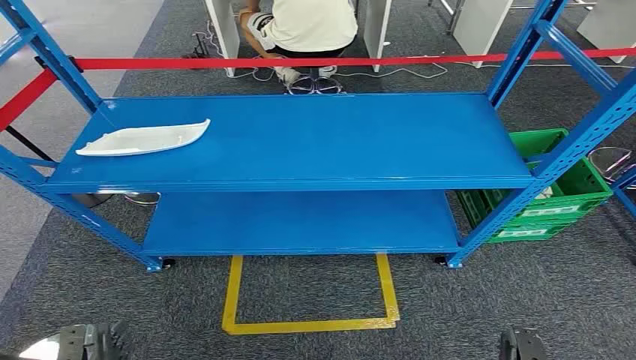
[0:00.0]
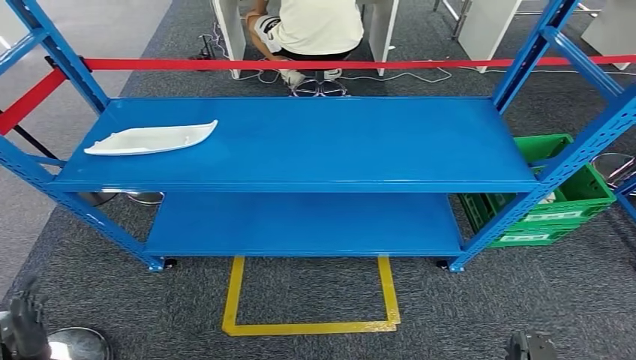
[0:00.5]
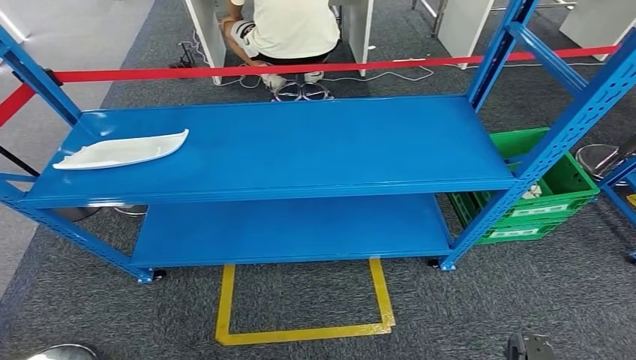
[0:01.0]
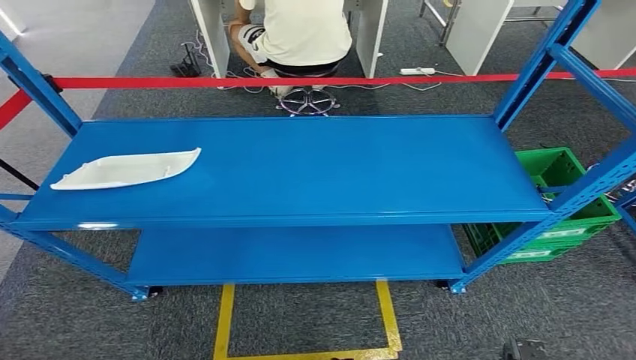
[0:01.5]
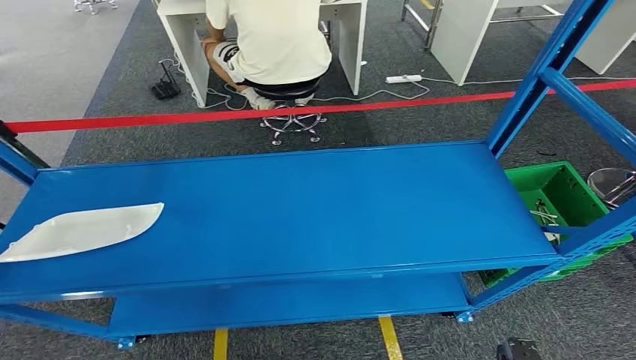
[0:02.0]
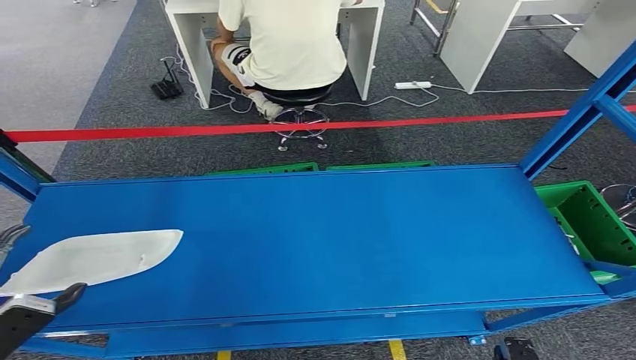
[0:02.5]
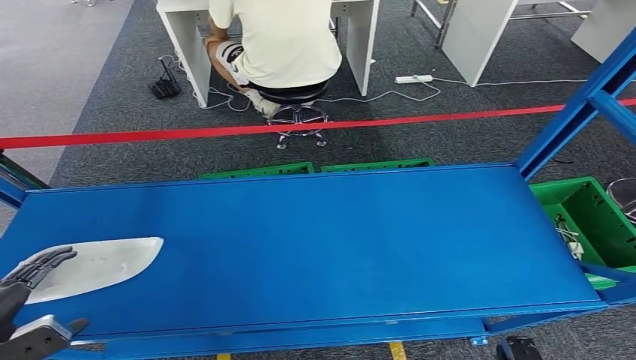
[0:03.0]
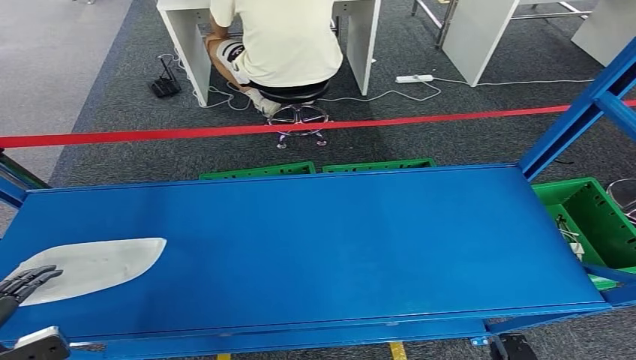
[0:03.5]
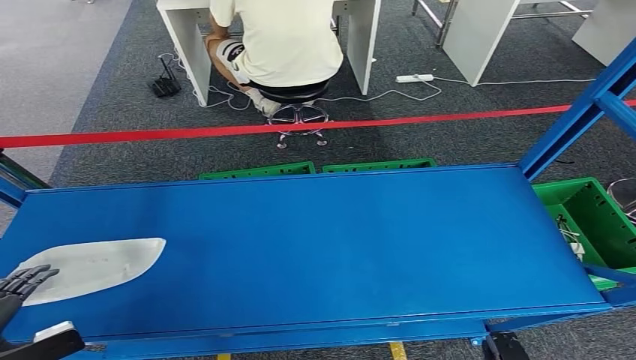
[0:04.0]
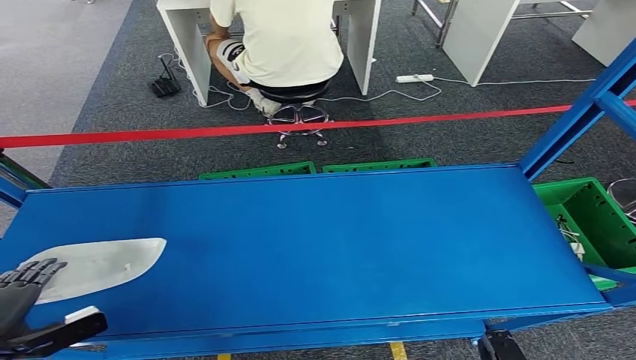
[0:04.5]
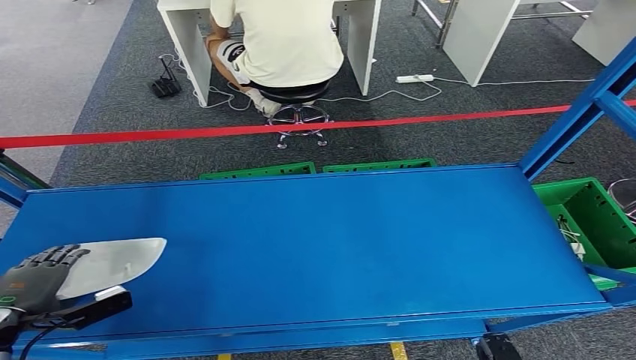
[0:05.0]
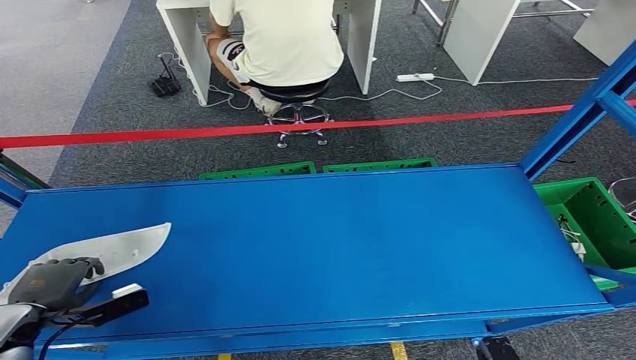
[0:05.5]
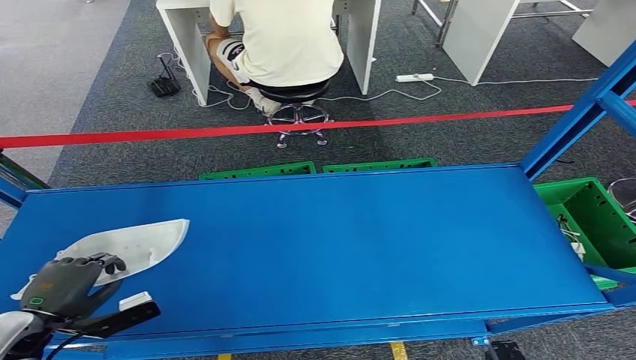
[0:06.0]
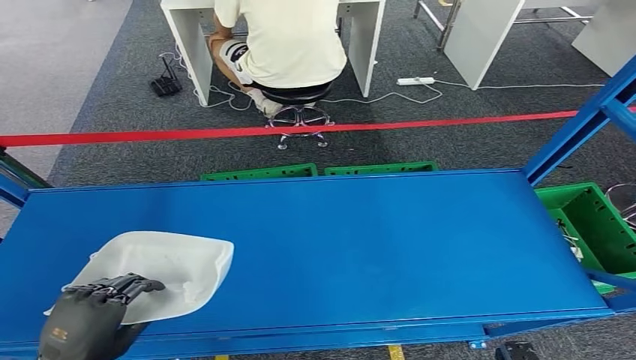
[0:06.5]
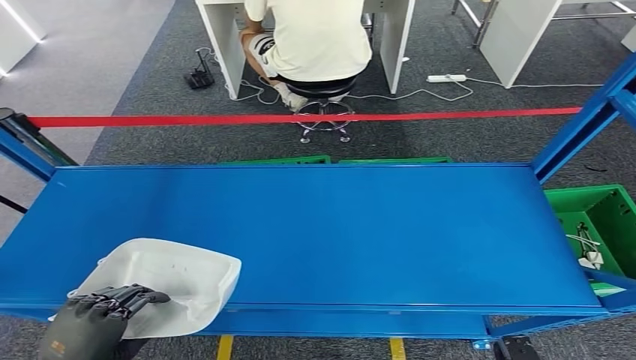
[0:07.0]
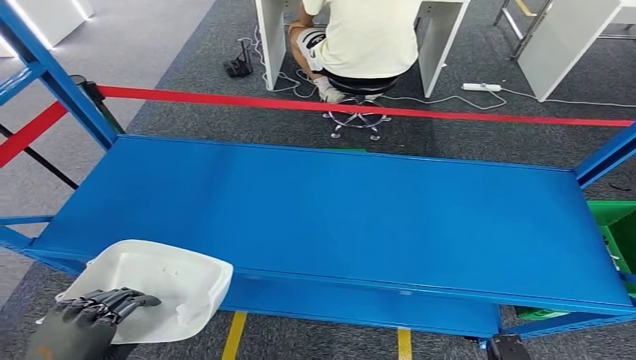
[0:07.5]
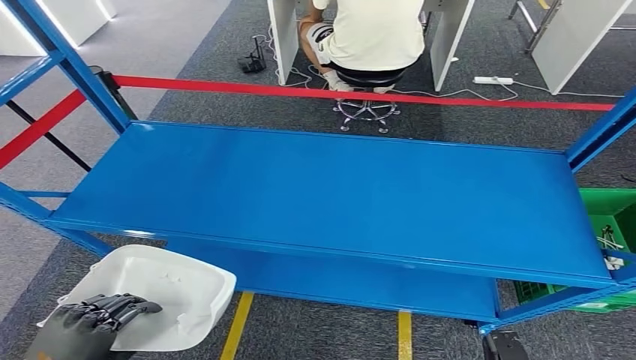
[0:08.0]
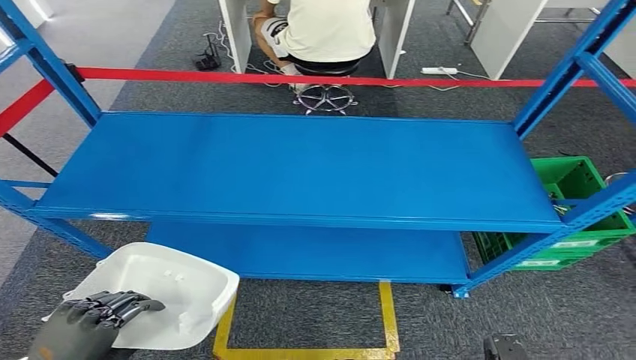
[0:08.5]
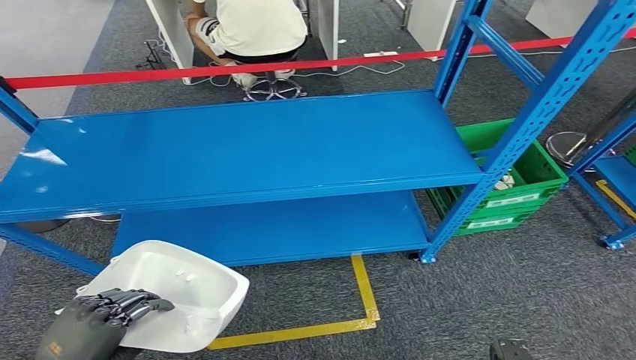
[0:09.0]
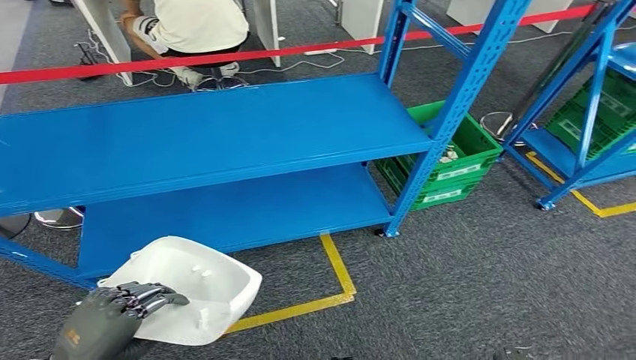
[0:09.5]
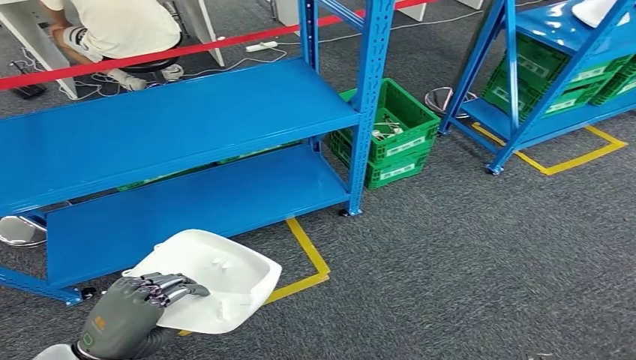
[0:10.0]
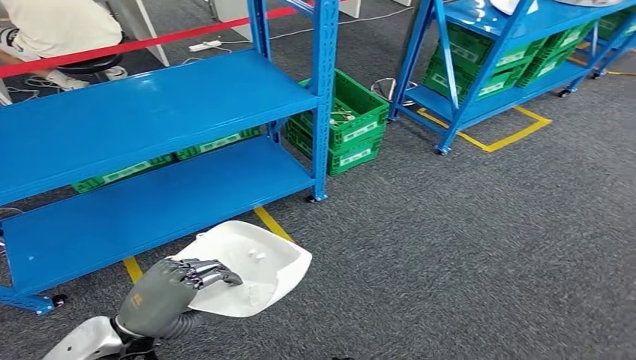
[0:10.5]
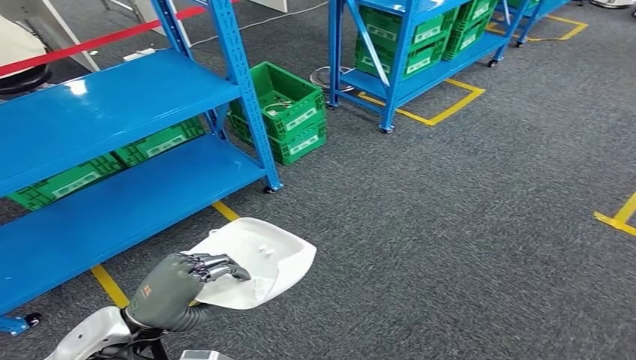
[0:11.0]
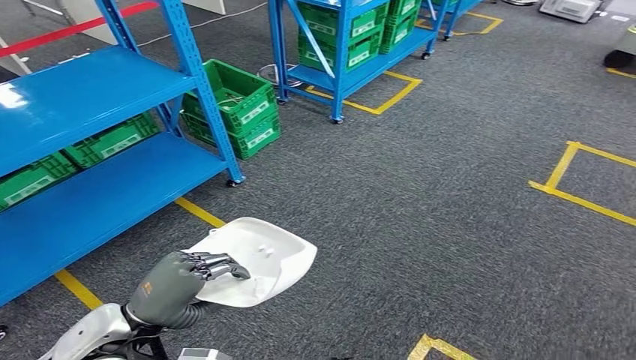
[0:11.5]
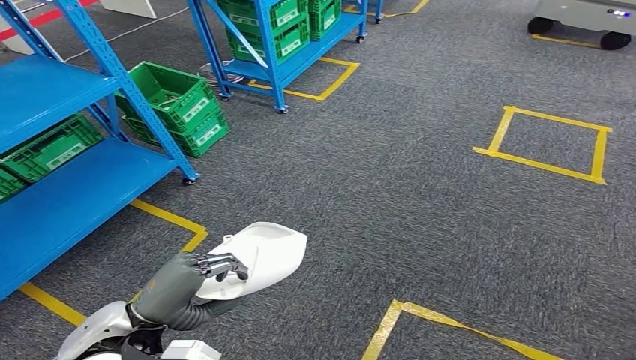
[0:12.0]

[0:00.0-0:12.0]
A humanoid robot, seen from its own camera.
Step, 0:00.0 to 0:07.5: Pick up the small component from the shelf.
0:04.0 to 0:06.0: The left hand moves to the right and forward, approximately 10 cm.

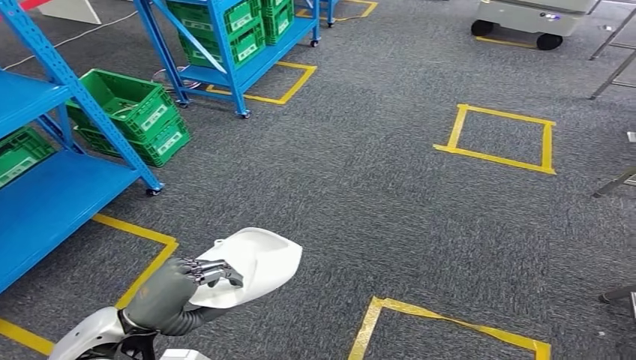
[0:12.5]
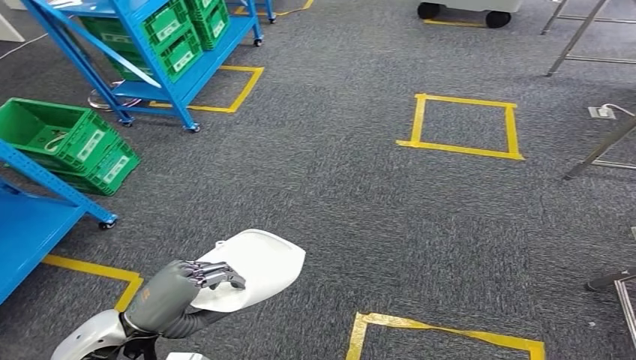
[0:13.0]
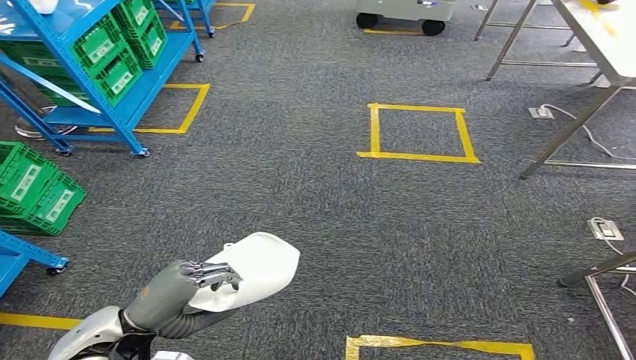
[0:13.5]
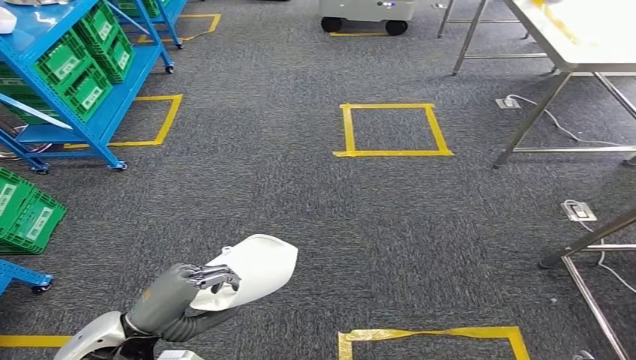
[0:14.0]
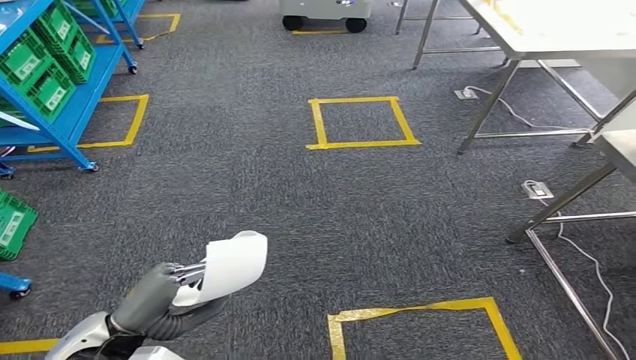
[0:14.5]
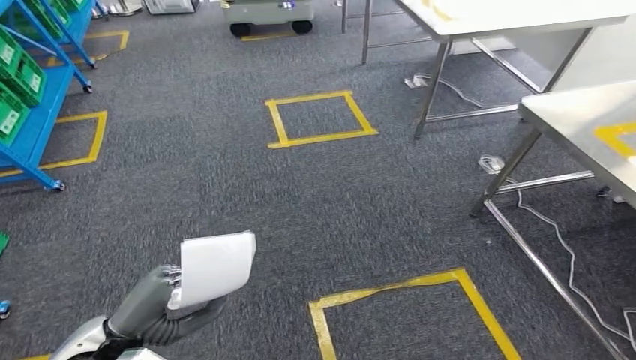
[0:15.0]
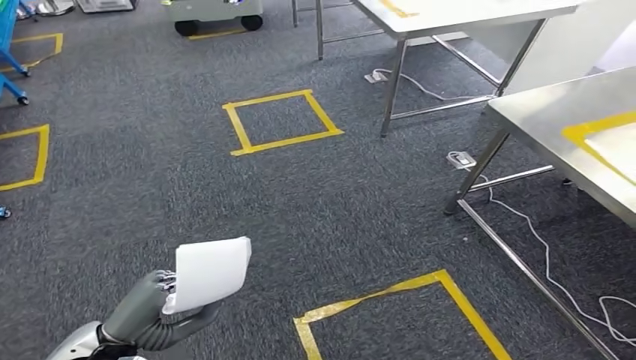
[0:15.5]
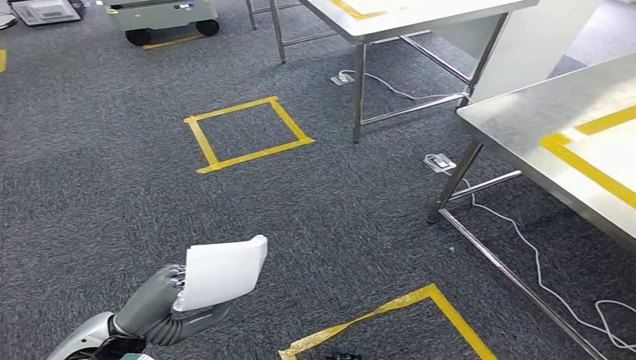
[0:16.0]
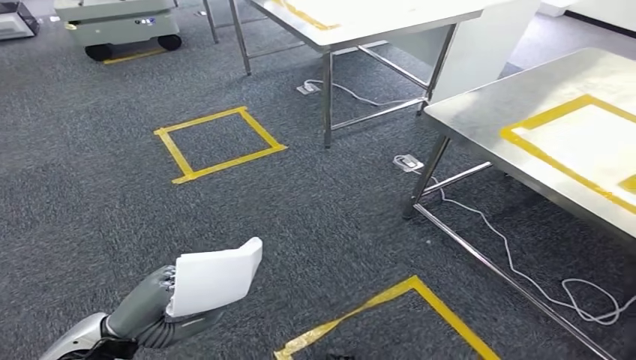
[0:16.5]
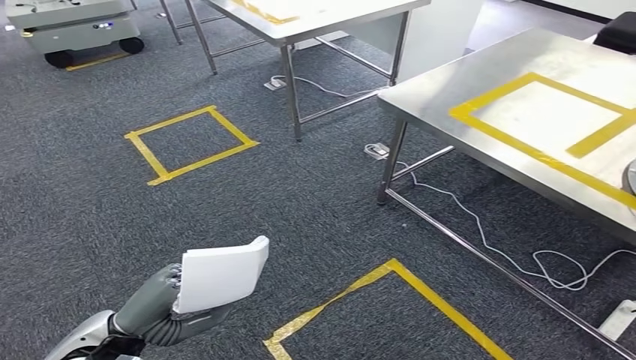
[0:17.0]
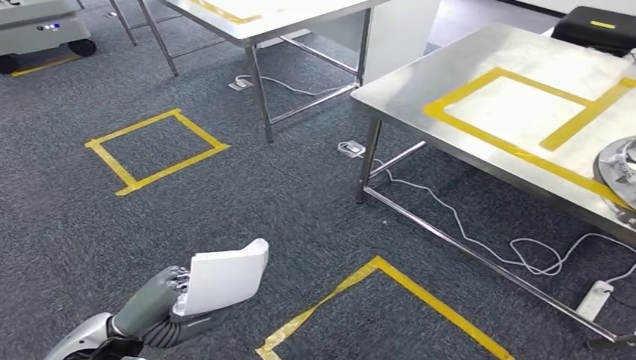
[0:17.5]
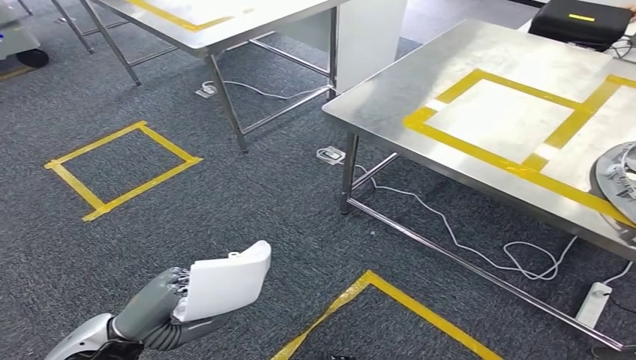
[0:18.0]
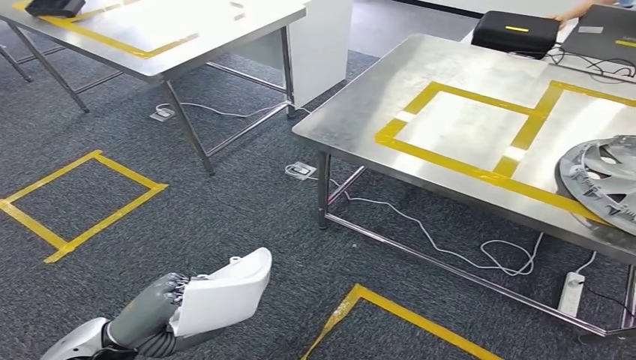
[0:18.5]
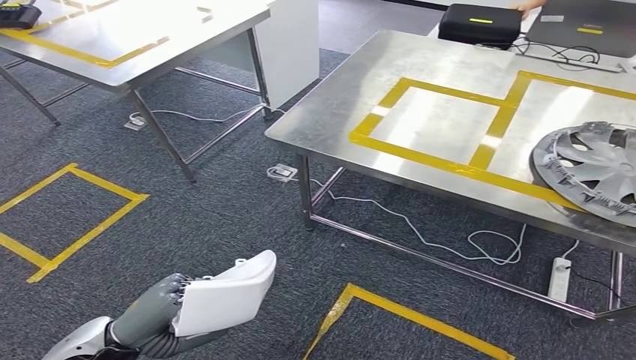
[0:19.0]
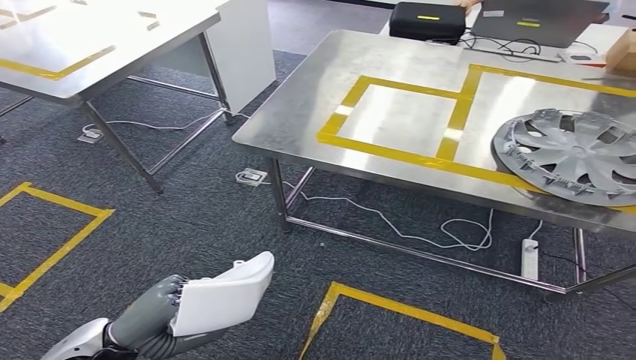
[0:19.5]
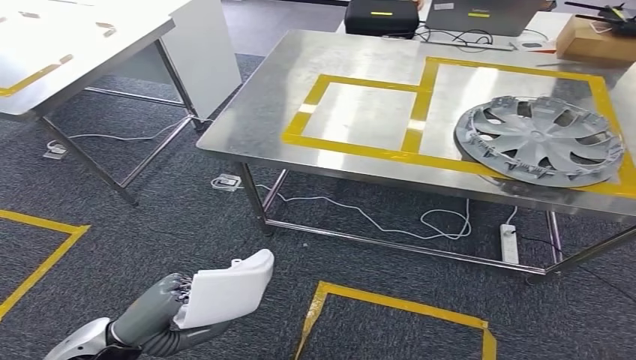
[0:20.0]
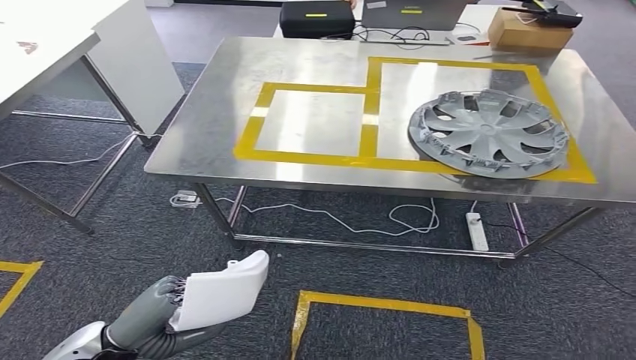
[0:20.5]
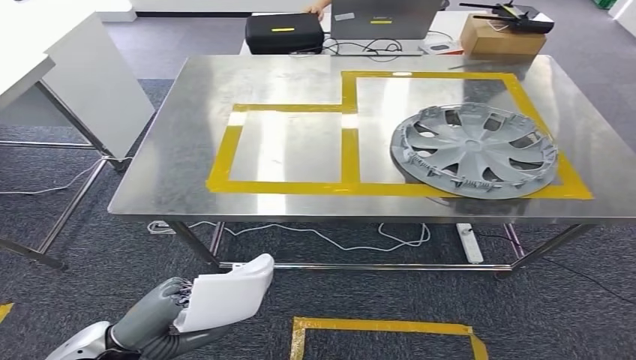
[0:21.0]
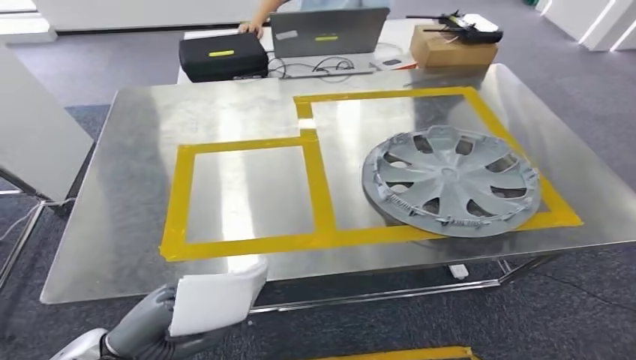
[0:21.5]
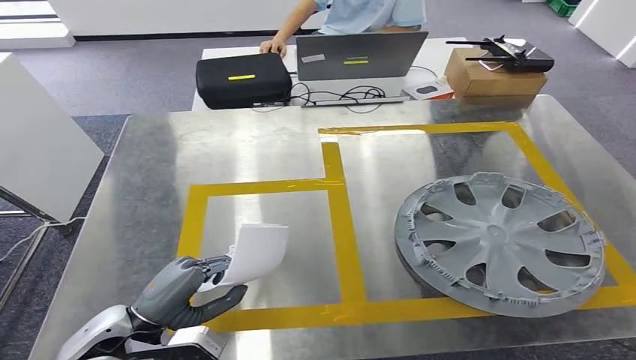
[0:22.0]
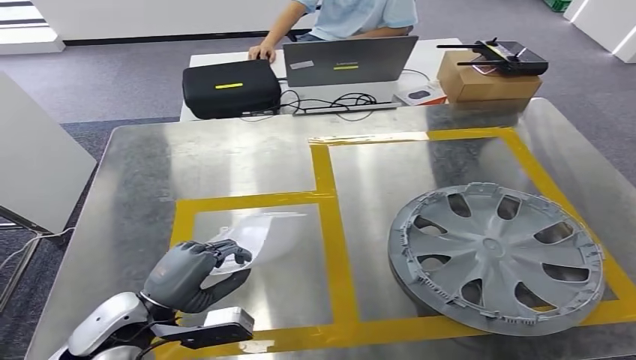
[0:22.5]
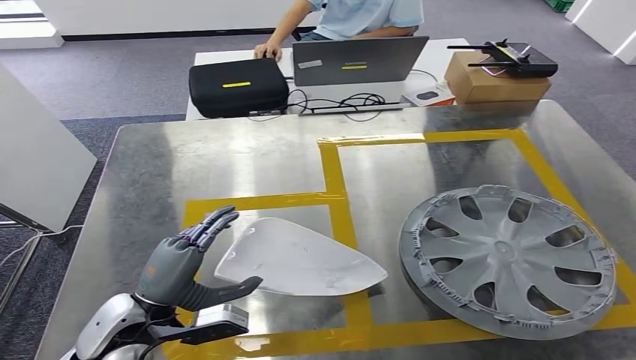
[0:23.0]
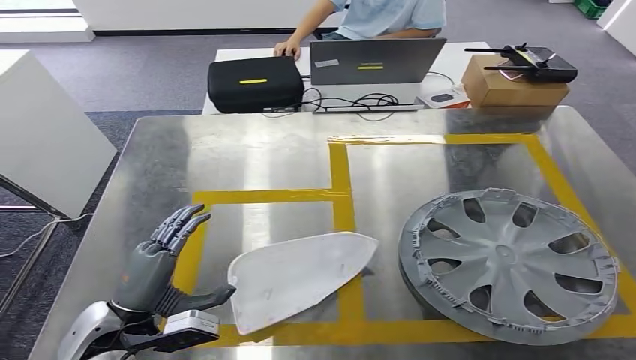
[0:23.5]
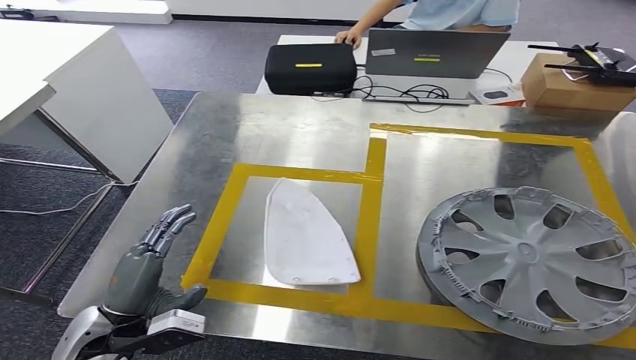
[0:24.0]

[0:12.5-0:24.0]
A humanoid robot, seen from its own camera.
Step, 0:12.5 to 0:21.5: Move the small component to the workbench.
